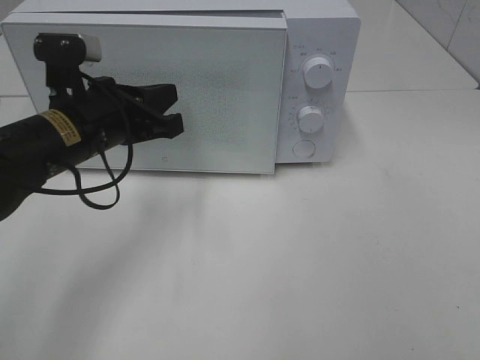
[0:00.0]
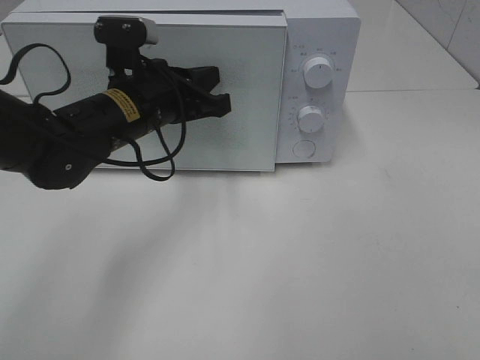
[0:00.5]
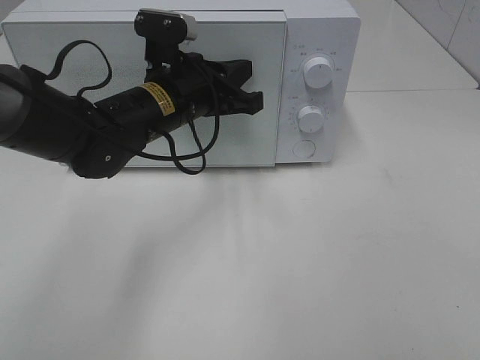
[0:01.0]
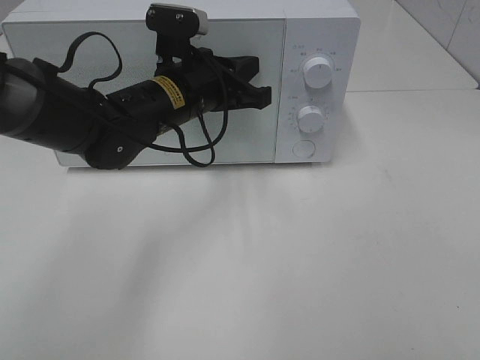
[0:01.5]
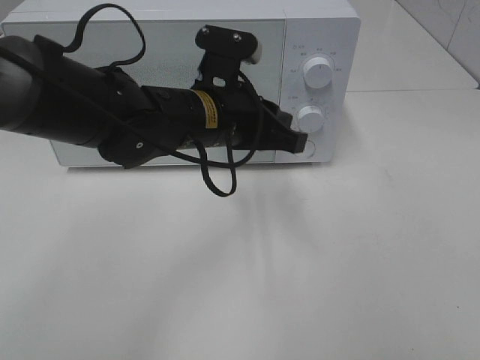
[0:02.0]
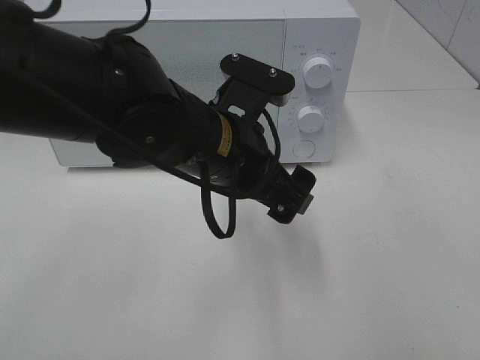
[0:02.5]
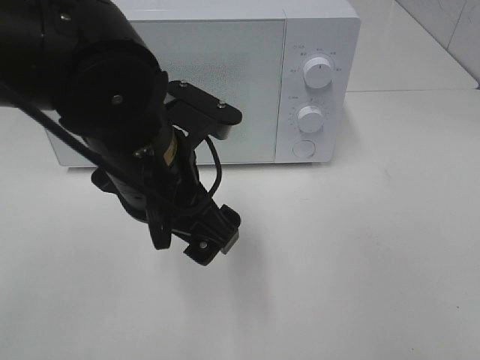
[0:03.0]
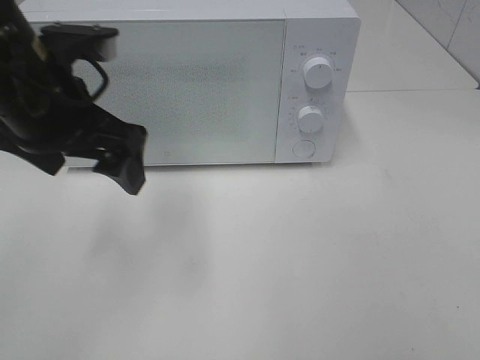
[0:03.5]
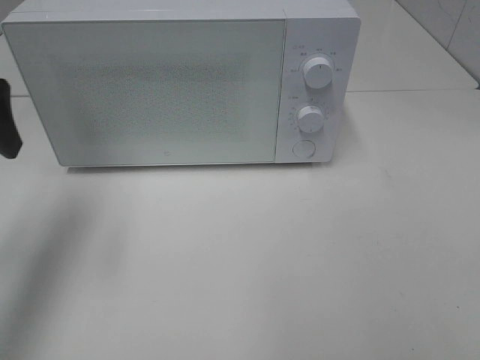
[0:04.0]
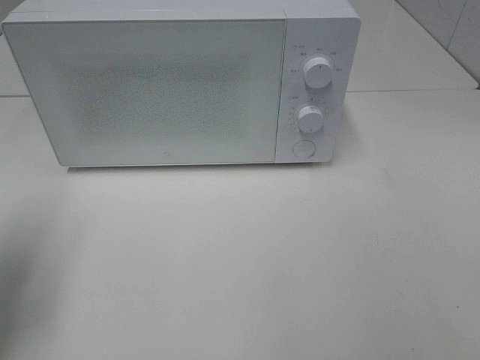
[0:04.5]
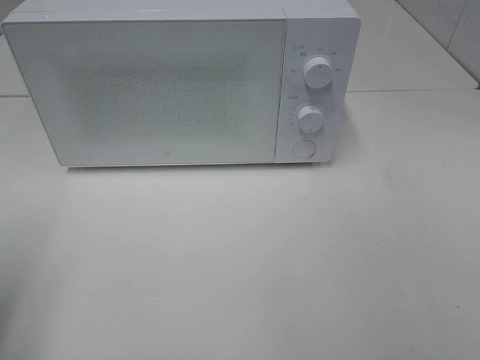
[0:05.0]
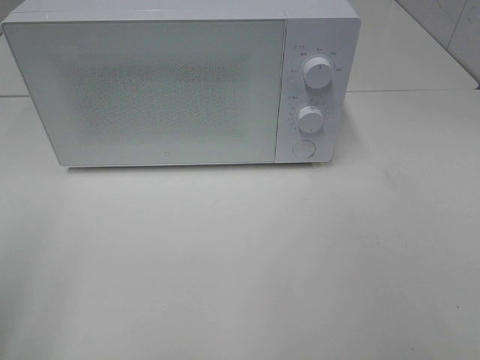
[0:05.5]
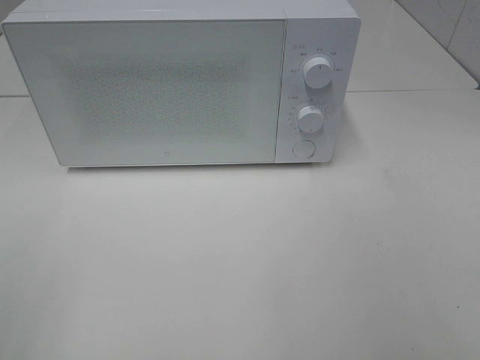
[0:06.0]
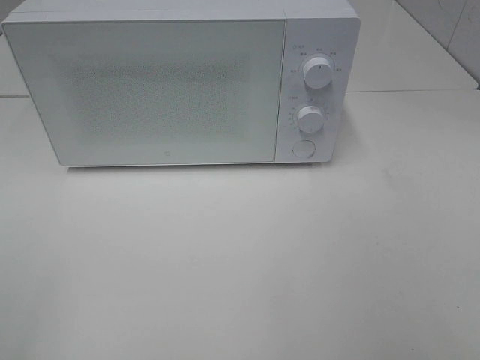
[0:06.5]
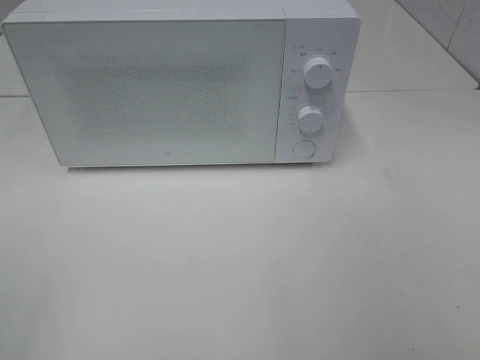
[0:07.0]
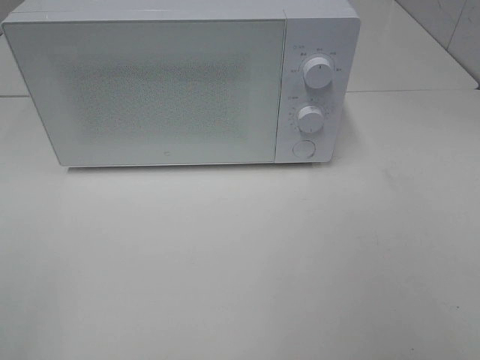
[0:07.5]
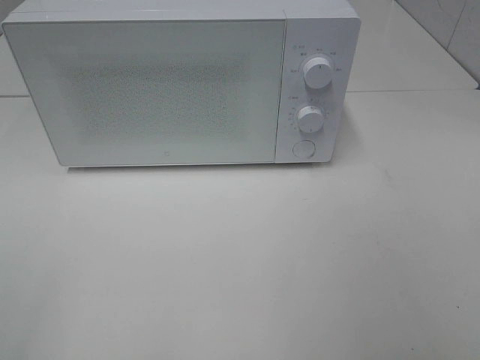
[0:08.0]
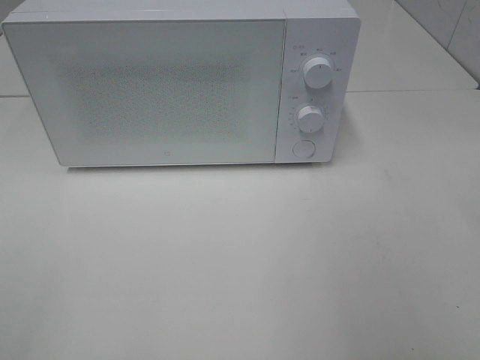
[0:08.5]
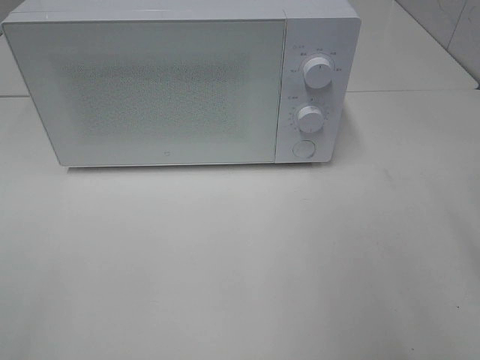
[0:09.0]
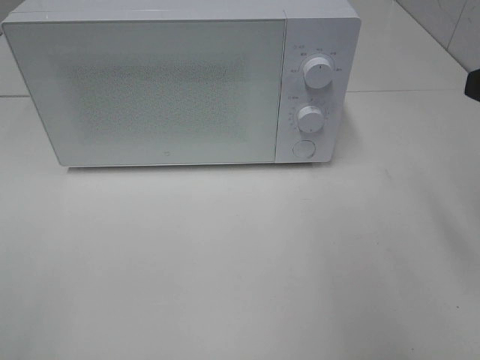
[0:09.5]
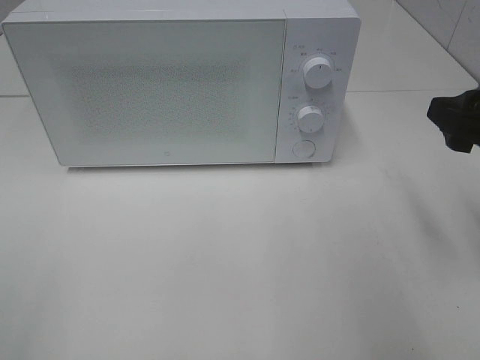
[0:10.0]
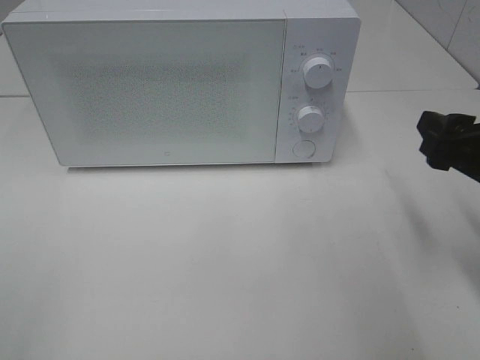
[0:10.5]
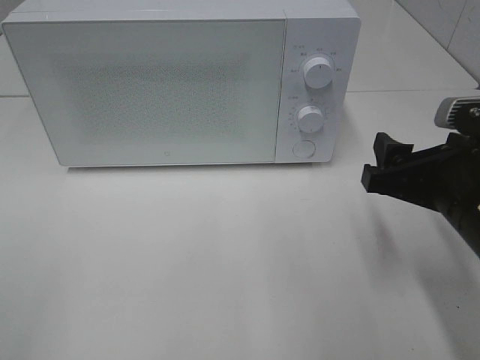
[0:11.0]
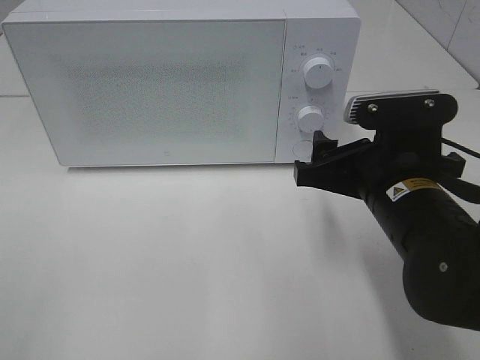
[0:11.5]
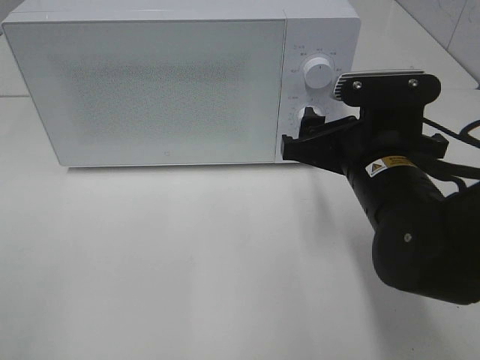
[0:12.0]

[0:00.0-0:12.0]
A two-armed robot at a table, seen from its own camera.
Task of the whole recording: Heat the burger.
0:00.0 to 0:02.0: The left gripper is displaced to the right by about 15 cm, and opens.
0:02.0 to 0:04.0: The left gripper travels to the left and upward by about 30 cm, and opens its fingers.
0:04.0 to 0:06.0: The left gripper shifts some 25 cm backward.
0:08.0 to 0:10.0: The right gripper moves forward and downward, about 20 cm.
0:10.0 to 0:12.0: The right gripper shifts approximately 15 cm to the left and downward.

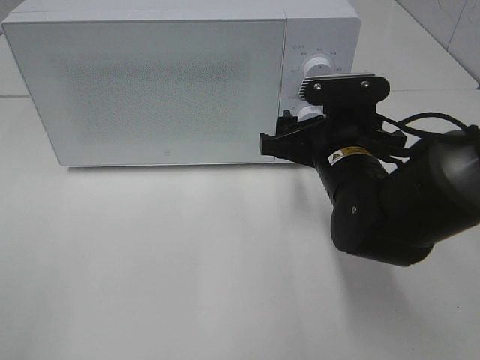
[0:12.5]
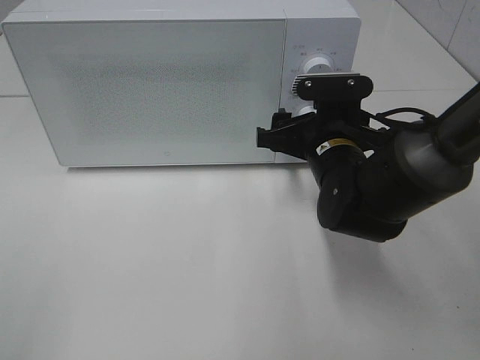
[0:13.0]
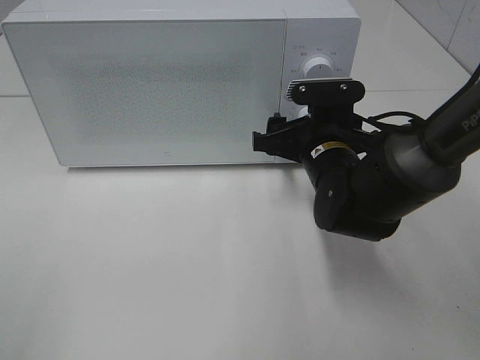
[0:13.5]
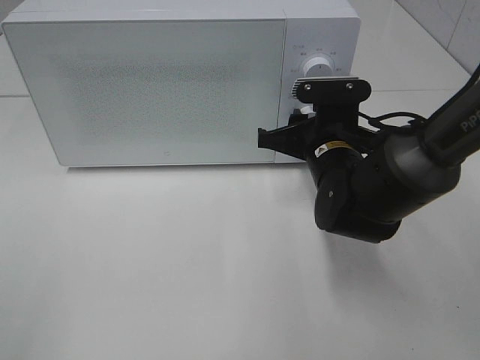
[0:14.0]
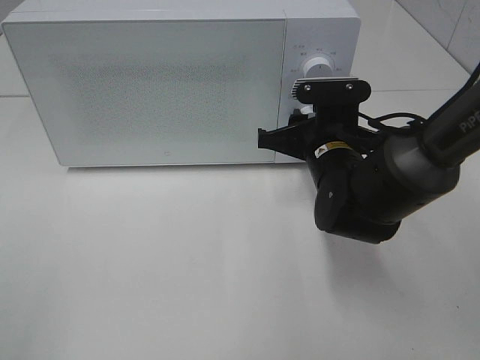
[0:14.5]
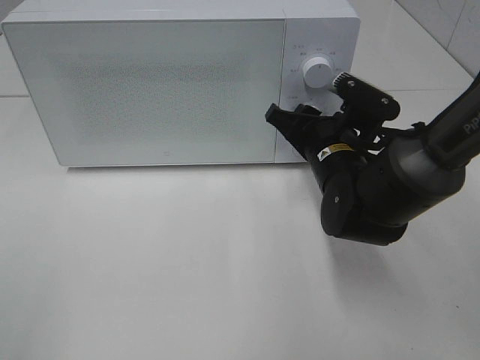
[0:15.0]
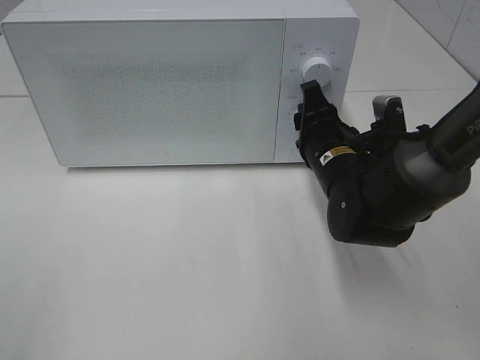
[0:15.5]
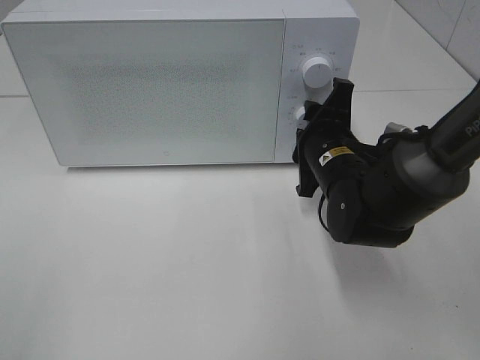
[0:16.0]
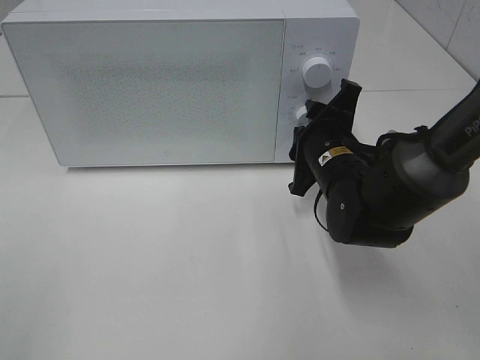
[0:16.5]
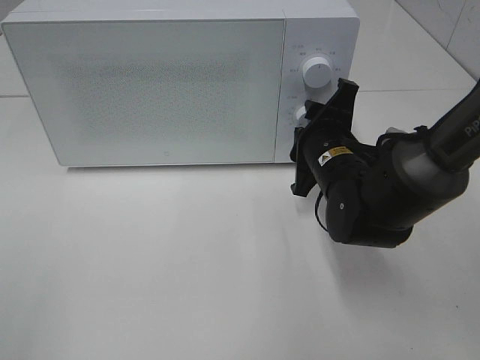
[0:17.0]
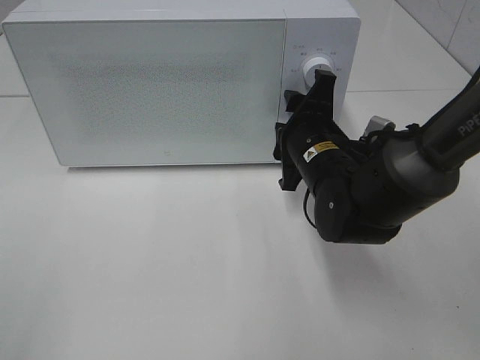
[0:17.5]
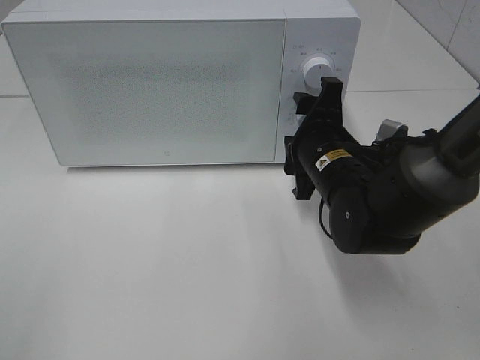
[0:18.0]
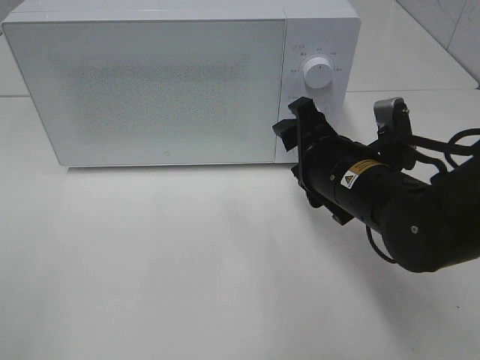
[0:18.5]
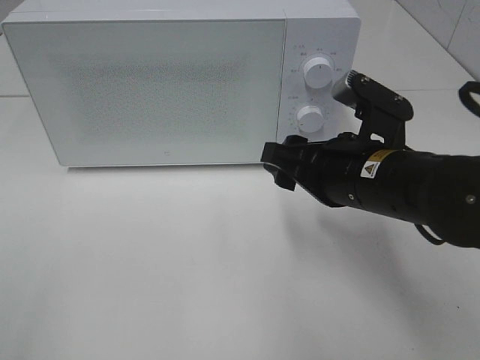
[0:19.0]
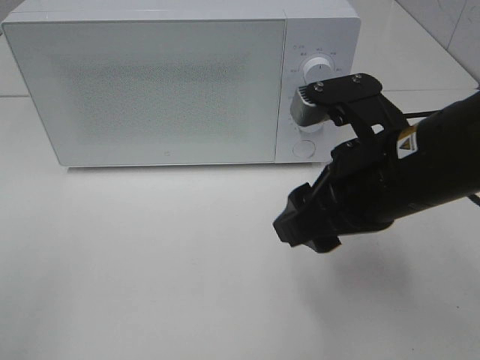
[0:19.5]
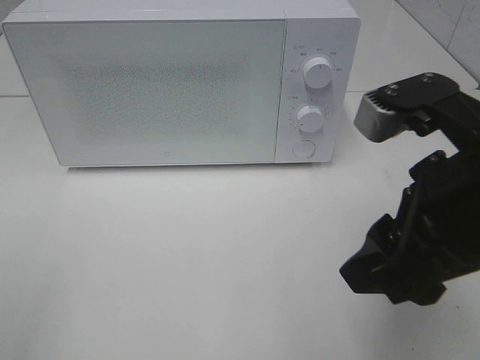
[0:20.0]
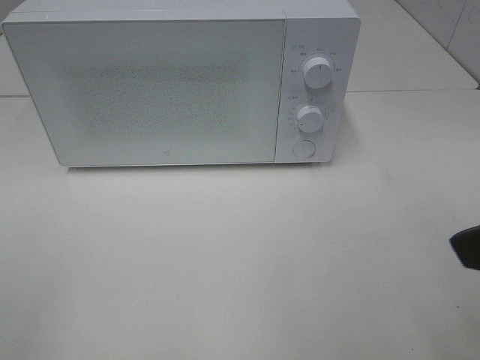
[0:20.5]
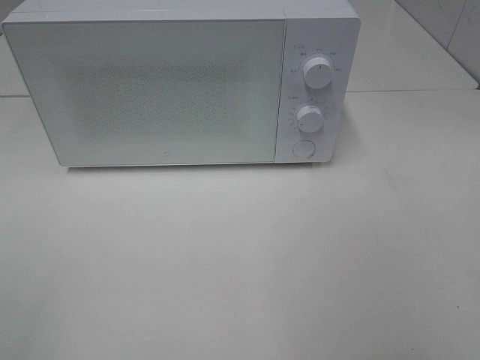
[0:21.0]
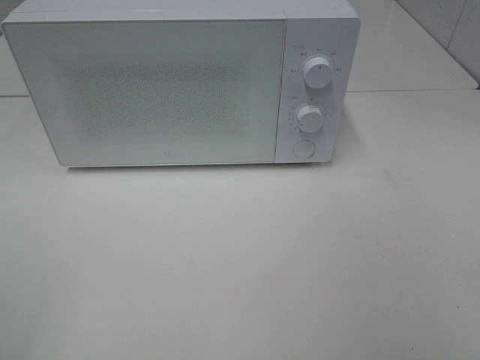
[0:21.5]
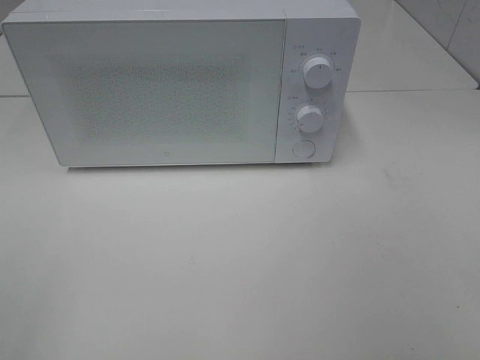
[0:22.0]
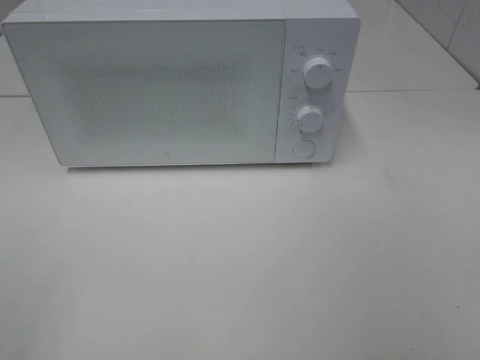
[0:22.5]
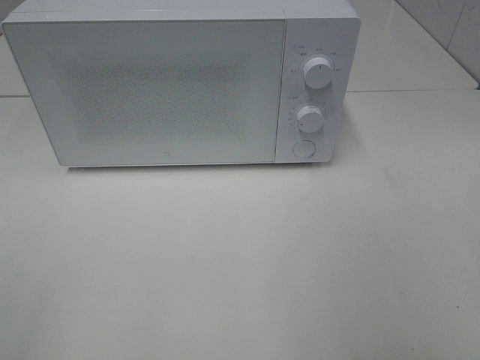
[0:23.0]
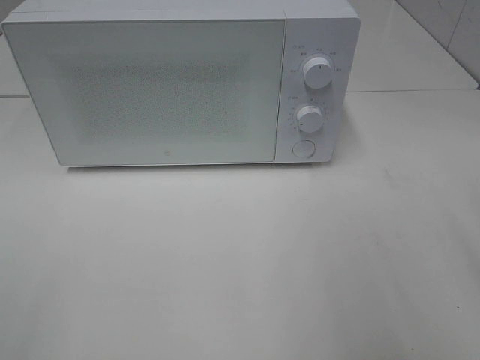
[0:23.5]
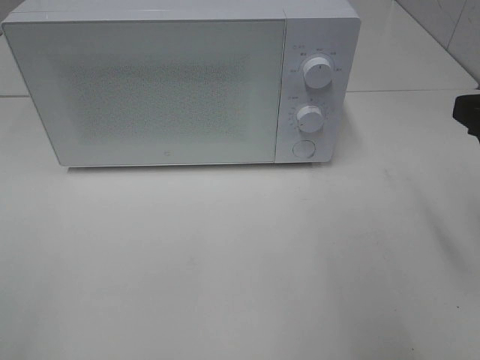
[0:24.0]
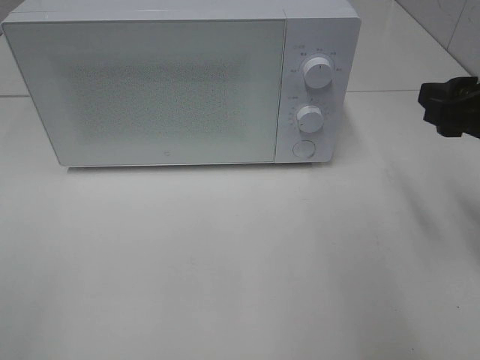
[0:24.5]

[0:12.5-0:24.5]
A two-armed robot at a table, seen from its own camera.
Task of the whole recording: Heat the burger.
Step, 0:12.5 to 0:17.0: Right hand: twist timer button.
0:12.5 to 0:14.5: The right gripper closes its fingers.
0:16.5 to 0:18.5: The right gripper travels backward by roughly 5 cm.
0:18.5 to 0:20.5: The right gripper goes roughly 25 cm upward, backward and to the right.
0:20.5 to 0:22.5: The right gripper goes roughly 10 cm backward and to the right.
0:22.5 to 0:24.5: The right gripper travels forward by about 20 cm.

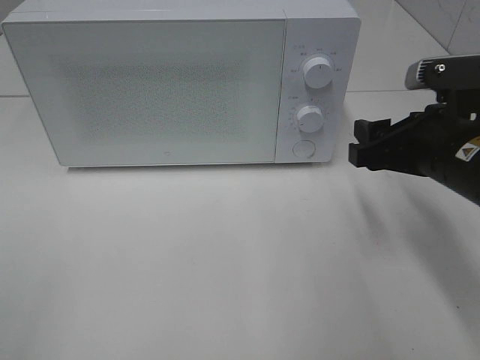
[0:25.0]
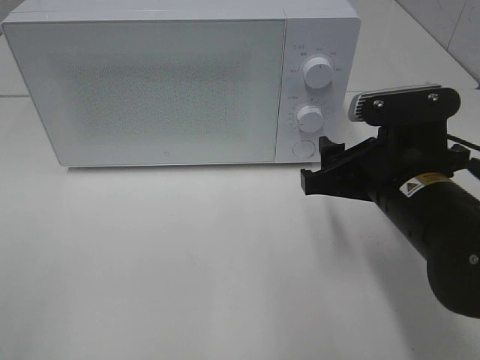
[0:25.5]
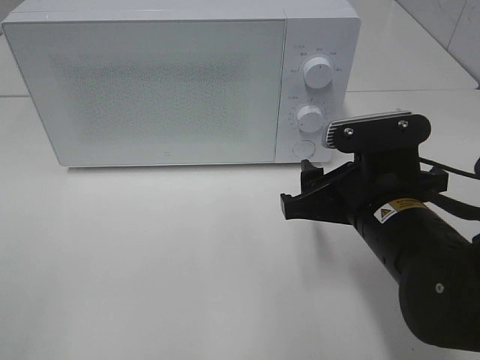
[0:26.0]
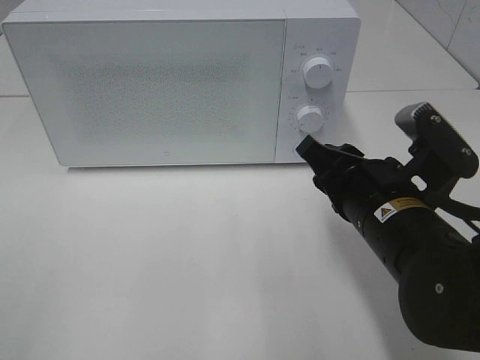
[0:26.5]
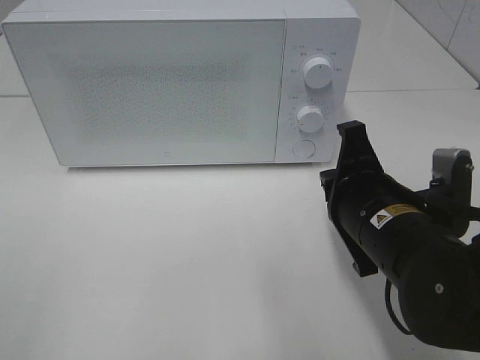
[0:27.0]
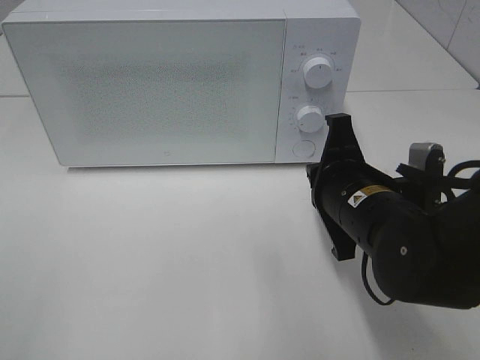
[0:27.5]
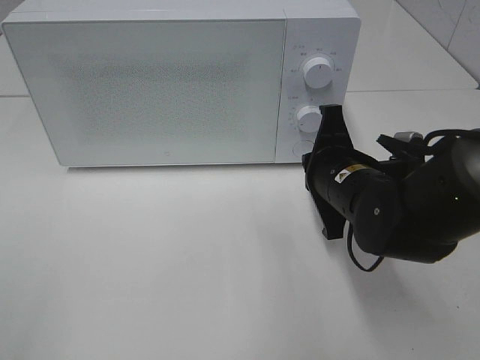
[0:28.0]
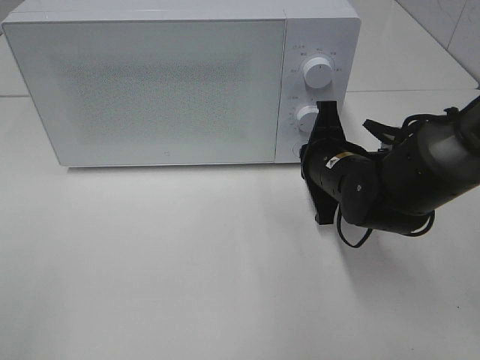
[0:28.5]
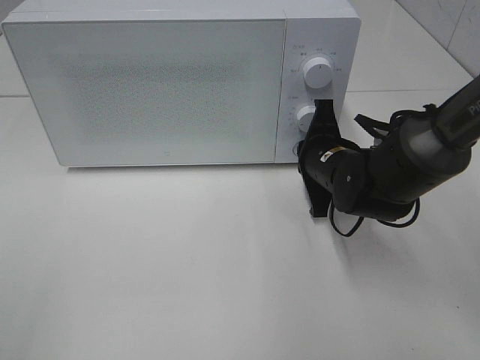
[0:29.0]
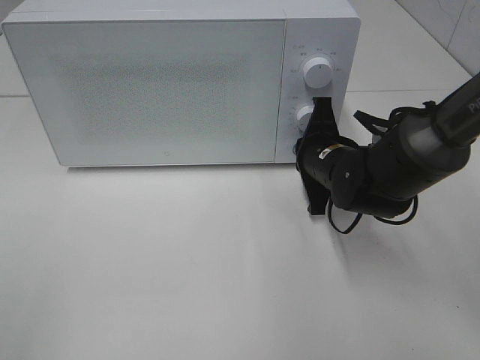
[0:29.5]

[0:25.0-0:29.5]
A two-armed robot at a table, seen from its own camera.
Task of the whole recording: Heat the burger.
0:25.0 to 0:27.0: The right gripper is displaced to the left by roughly 10 cm, and closes its fingers.
0:27.0 to 0:29.5: The right gripper travels forward by approximately 15 cm.
